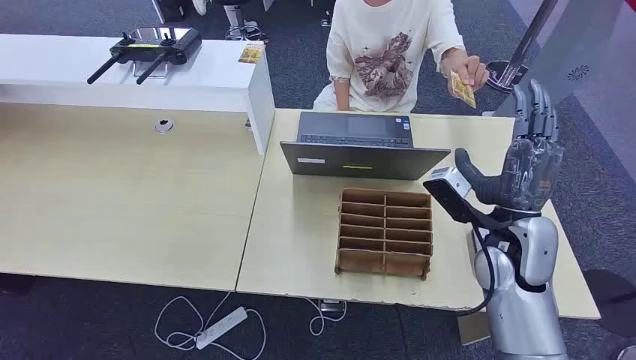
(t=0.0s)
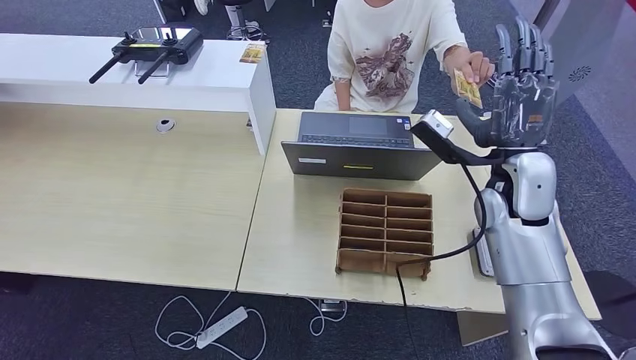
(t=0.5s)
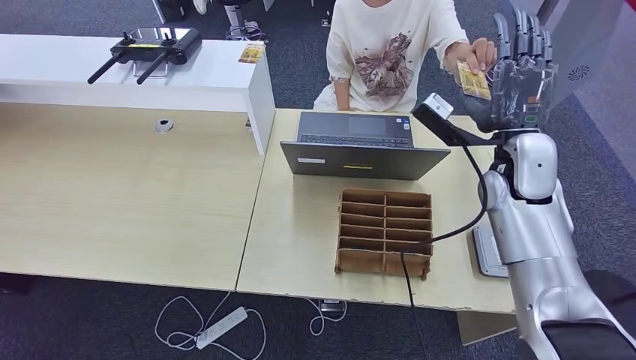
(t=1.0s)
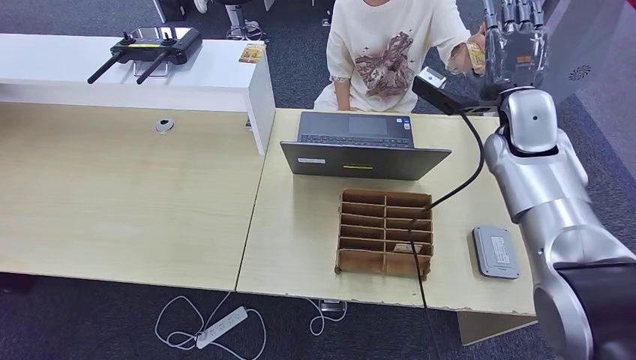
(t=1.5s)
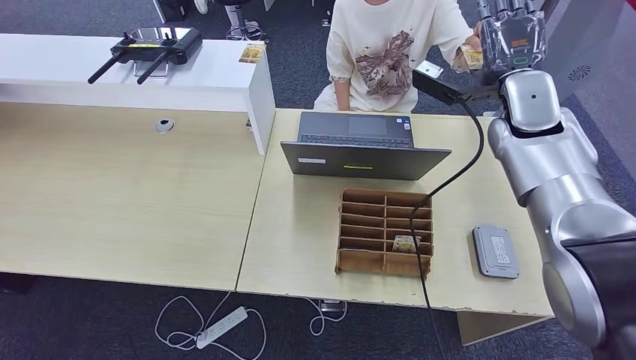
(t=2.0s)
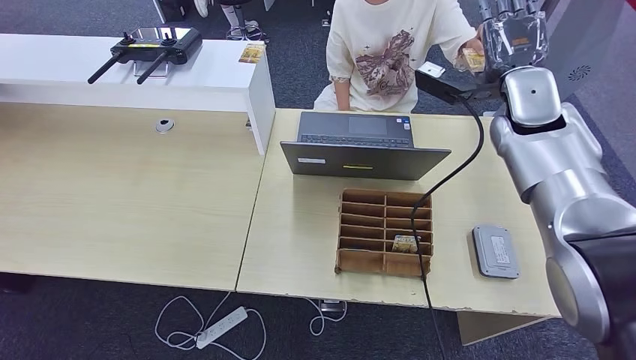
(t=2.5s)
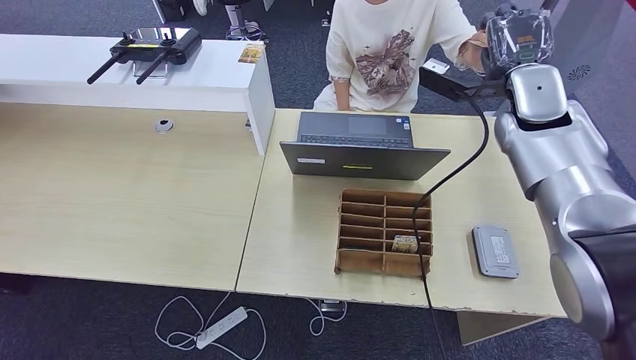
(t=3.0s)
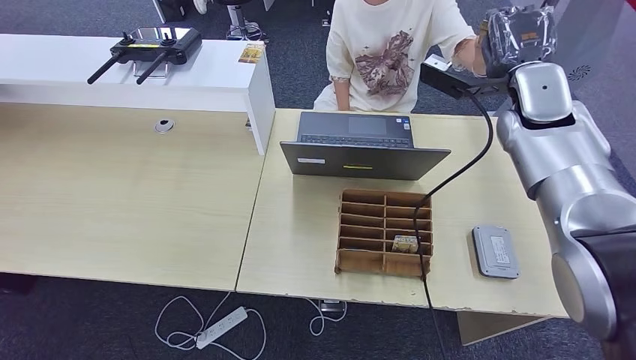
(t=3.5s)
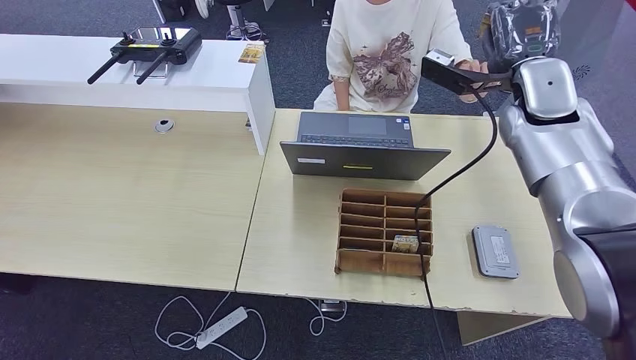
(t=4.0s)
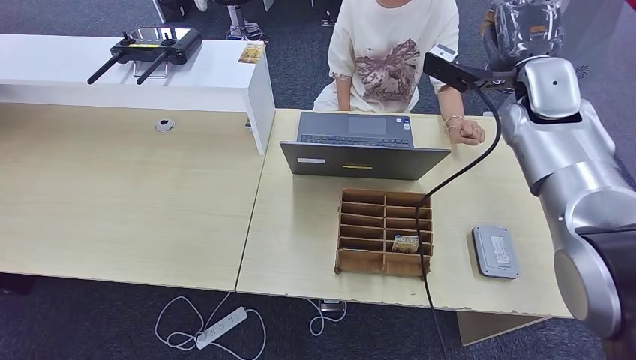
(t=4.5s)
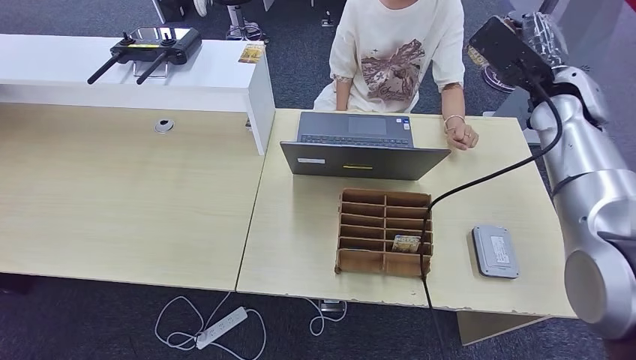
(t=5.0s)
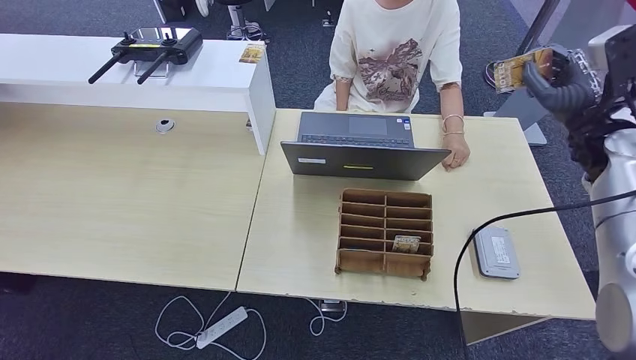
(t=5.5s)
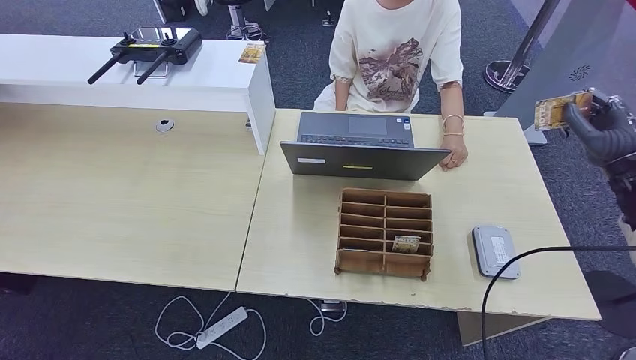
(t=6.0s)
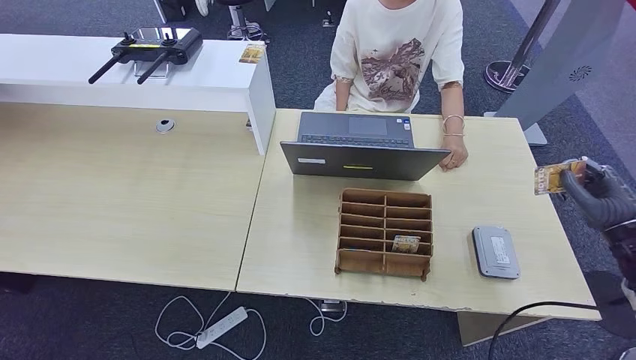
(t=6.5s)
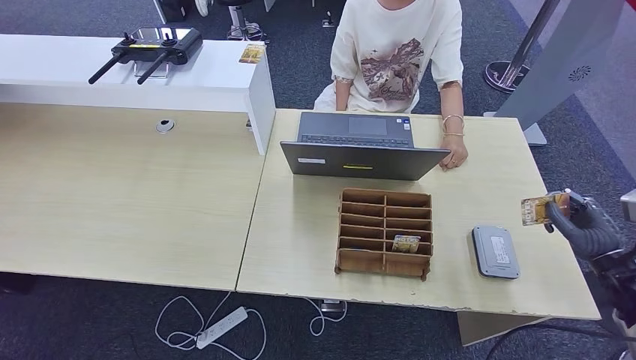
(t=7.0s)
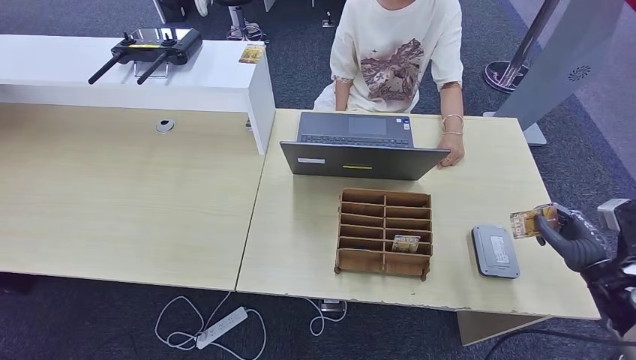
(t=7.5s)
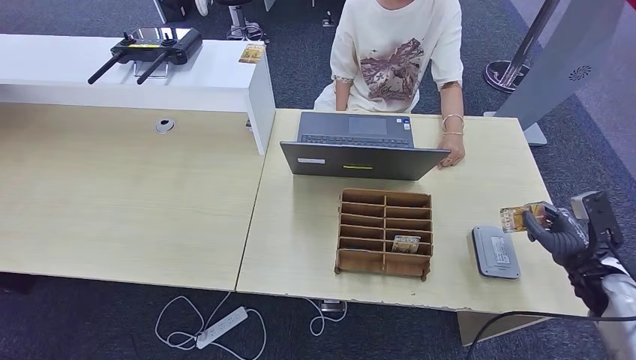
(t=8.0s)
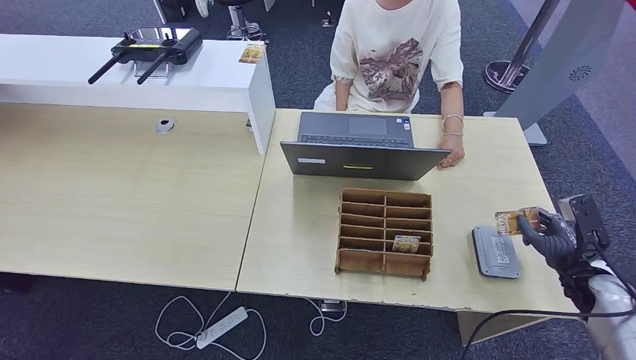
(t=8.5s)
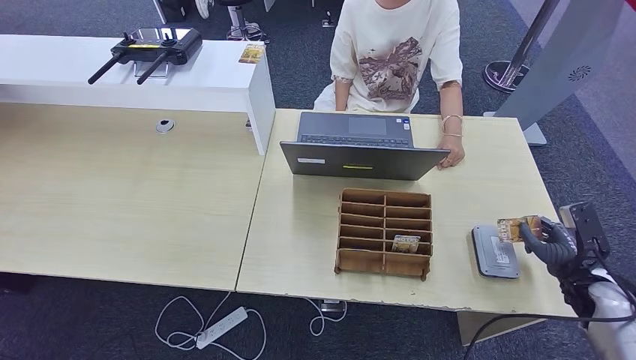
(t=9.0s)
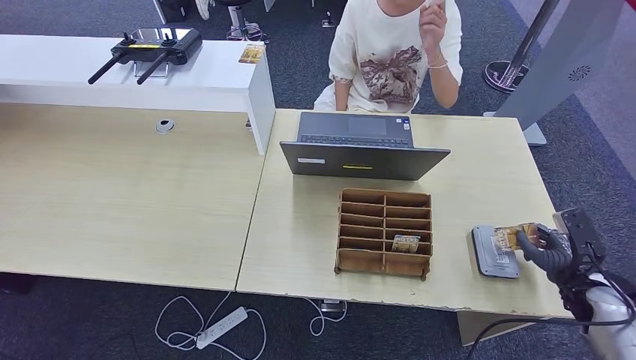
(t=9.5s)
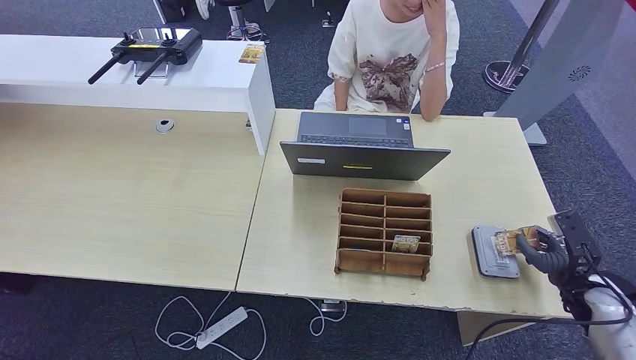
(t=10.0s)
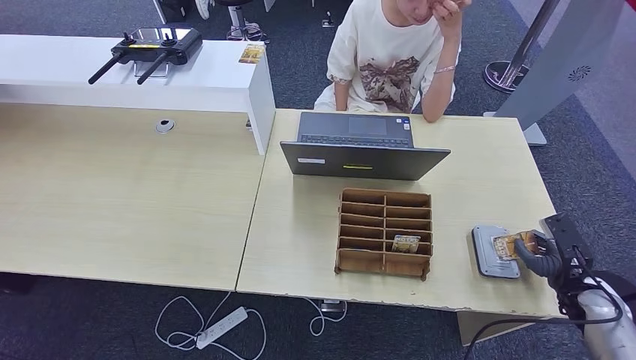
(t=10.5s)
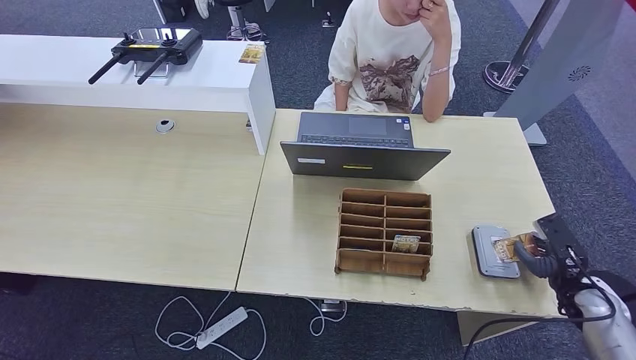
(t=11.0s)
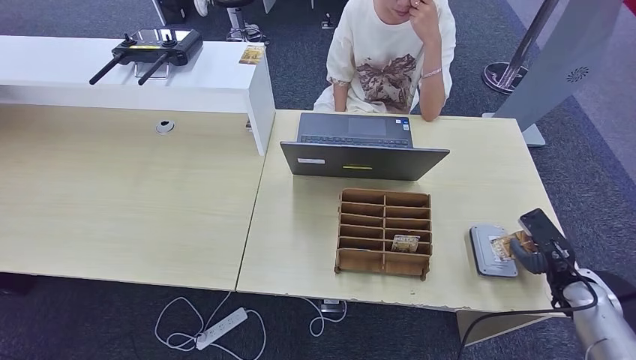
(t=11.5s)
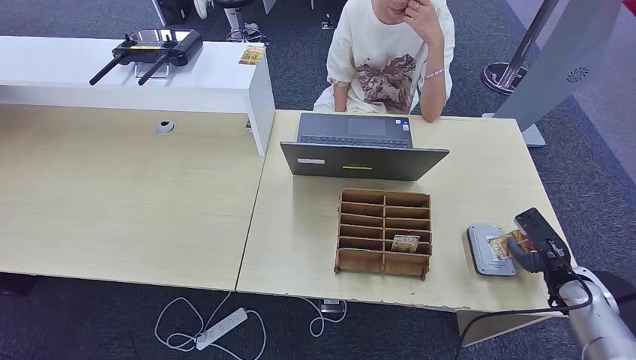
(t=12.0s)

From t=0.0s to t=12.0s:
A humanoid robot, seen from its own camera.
Step, from t=0.0s to t=3.5s: Take the ID card from the person's hand.
Step, from t=4.5s to t=11.0s: Place the ID card on the card reader.
From t=2.0s to t=4.0s: The hands make only small movements.
From t=4.0s to t=6.0s: The right hand shifts about 20 cm to the right, downward and backward.
From t=6.0s to t=8.0s: The right hand shifts approximately 20 cm downward and backward.
From t=8.0s to t=10.0s: The hands move only a little.

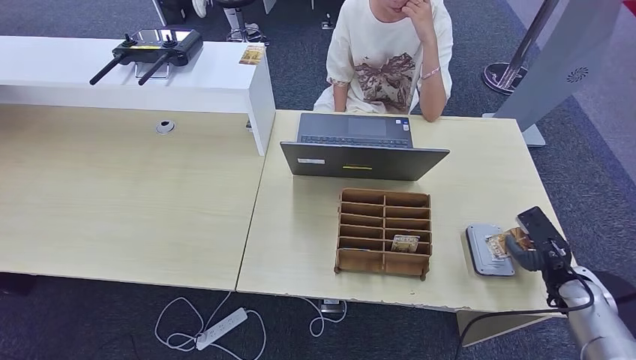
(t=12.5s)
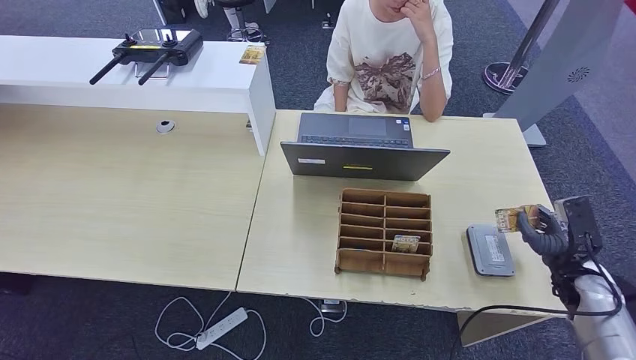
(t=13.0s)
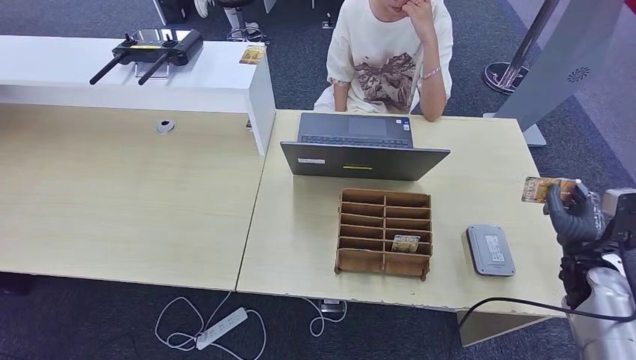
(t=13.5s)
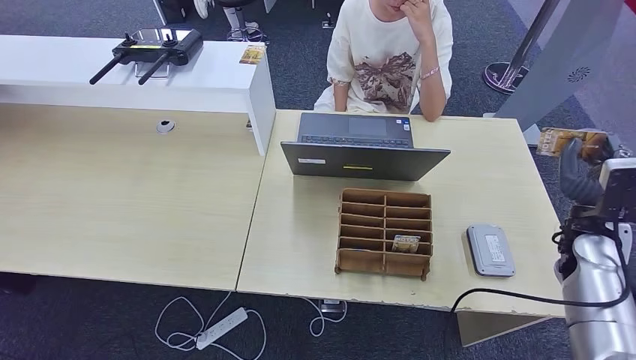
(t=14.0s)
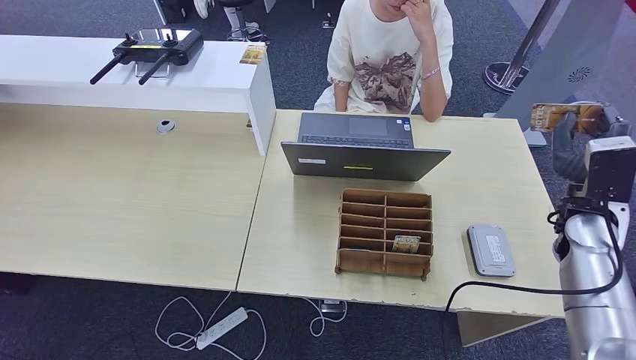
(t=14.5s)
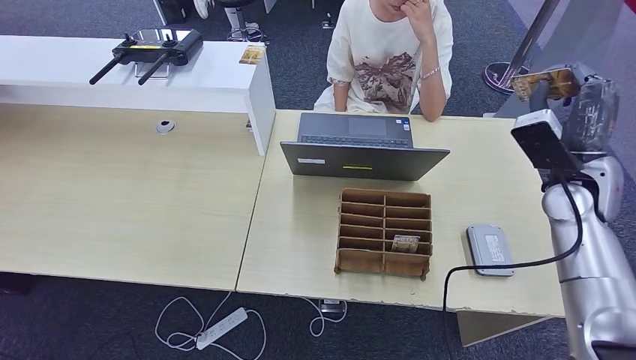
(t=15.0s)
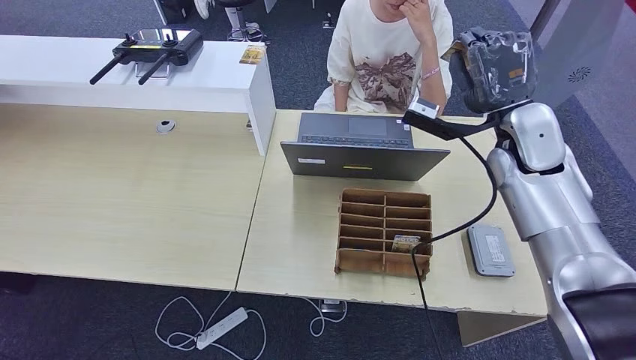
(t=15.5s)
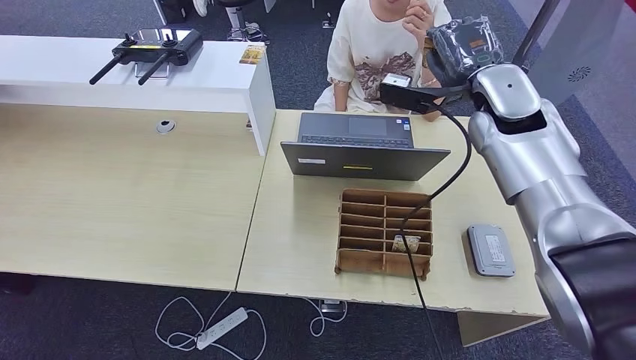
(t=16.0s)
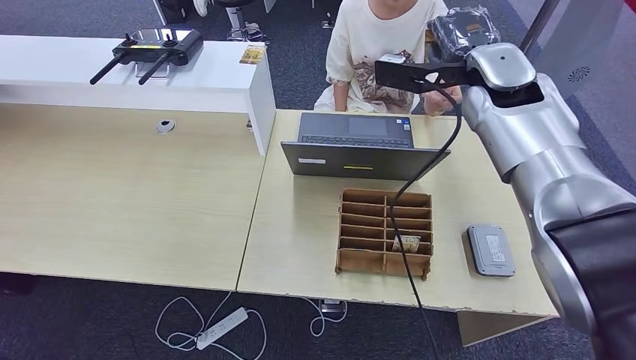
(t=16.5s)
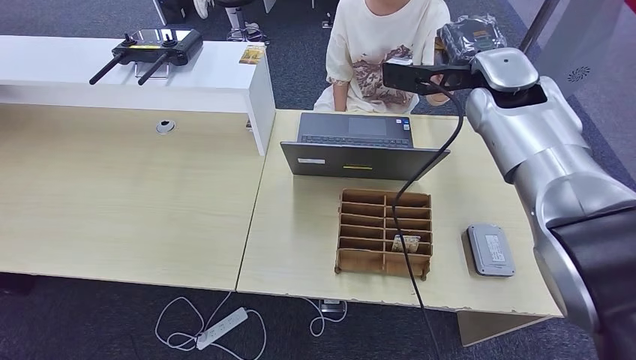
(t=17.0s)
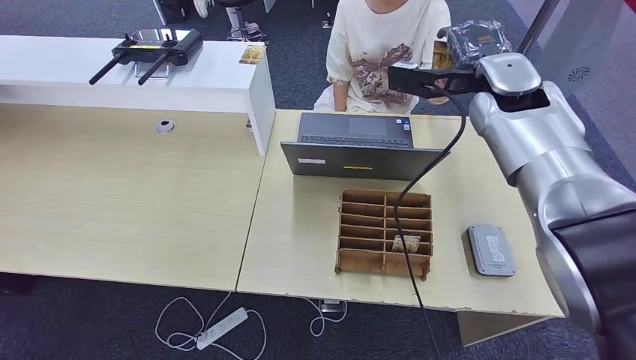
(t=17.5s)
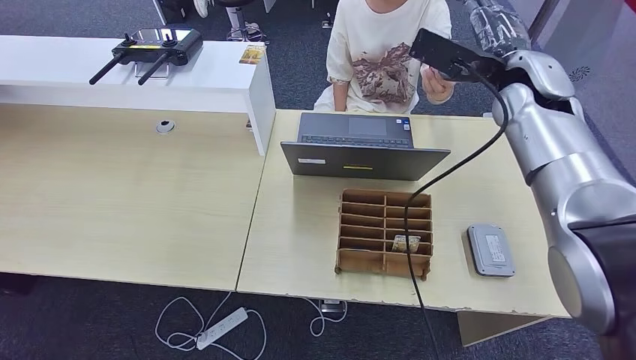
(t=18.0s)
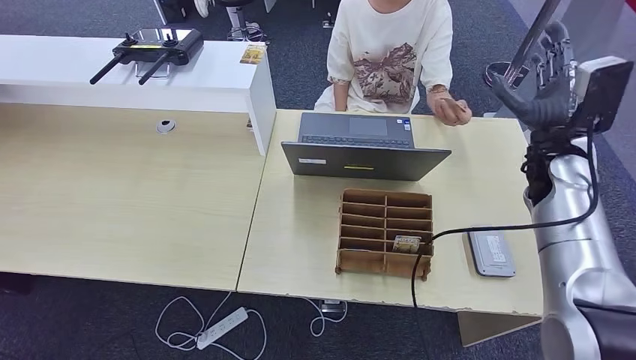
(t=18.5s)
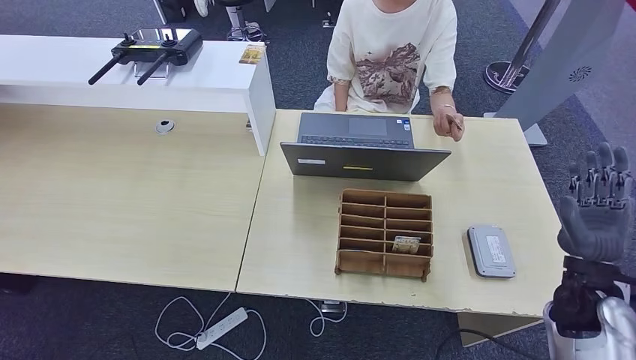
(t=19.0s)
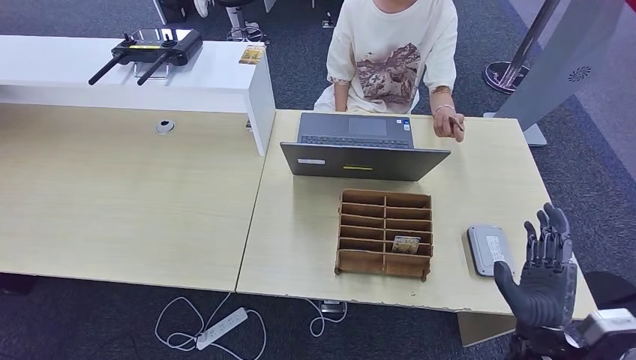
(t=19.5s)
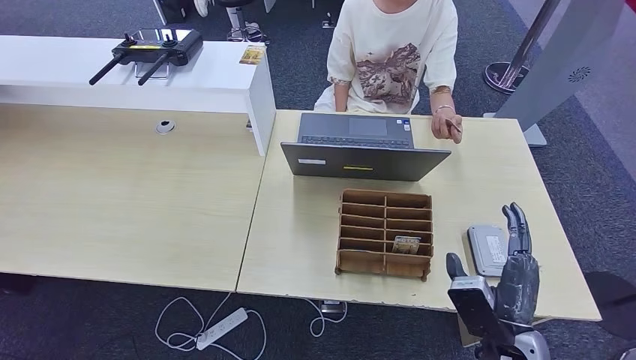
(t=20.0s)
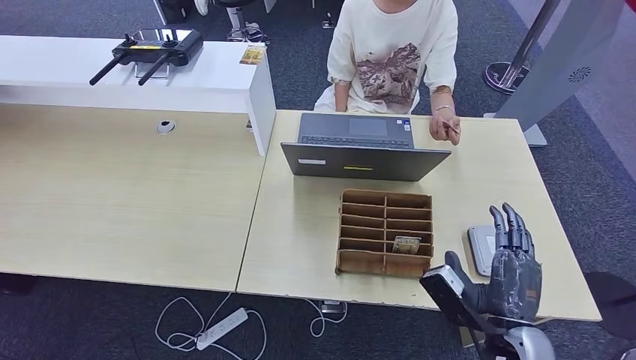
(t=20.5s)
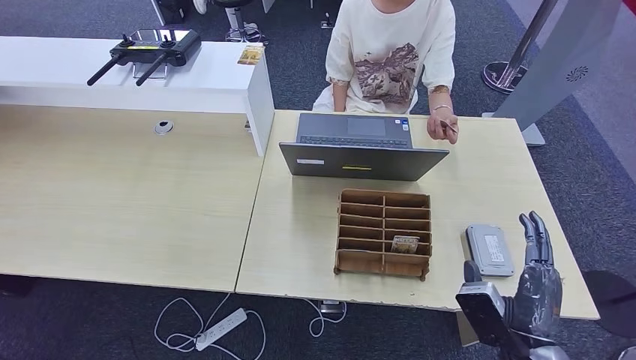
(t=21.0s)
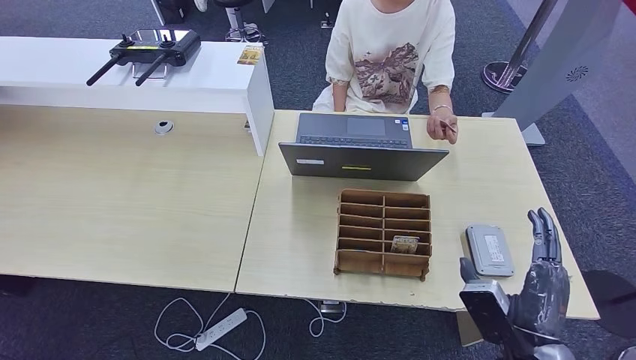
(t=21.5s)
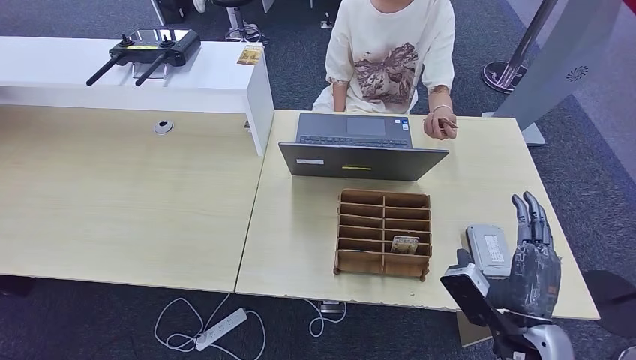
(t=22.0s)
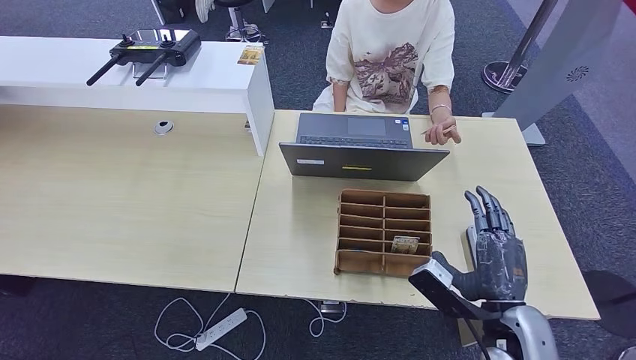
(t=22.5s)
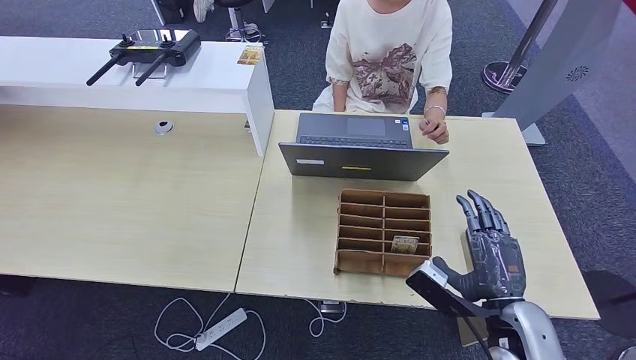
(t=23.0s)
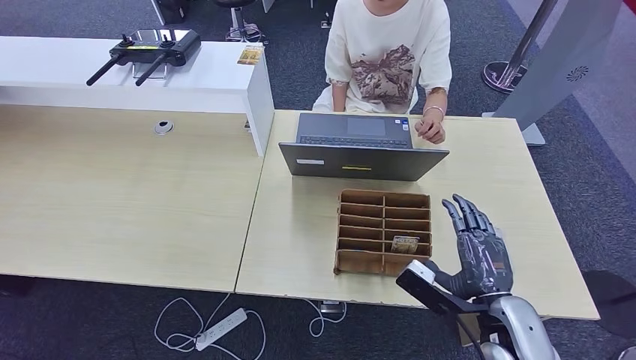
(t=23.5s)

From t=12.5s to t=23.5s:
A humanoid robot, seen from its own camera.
Step, from t=12.5s to t=18.0s: Hand the ID card to the person.
From t=12.5s to t=14.5s: The right hand travels upward, to the left and forward by approximately 20 cm.
From t=14.5s to t=16.0s: The right hand is displaced to the left, upward and forward by roughly 25 cm.
From t=18.0s to t=20.0s: The right hand shifts about 40 cm backward and downward.
